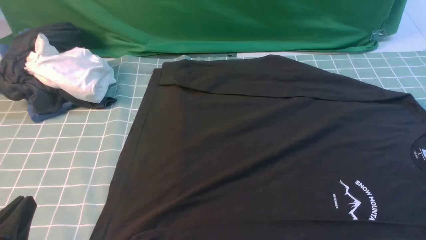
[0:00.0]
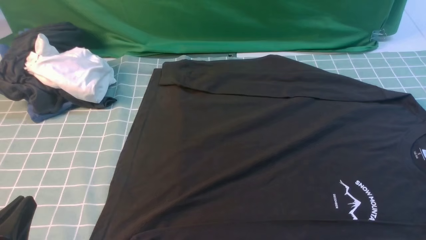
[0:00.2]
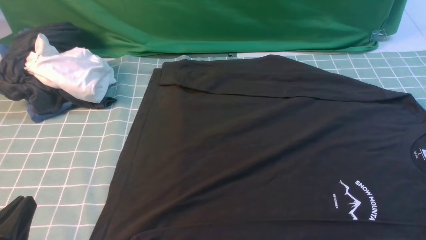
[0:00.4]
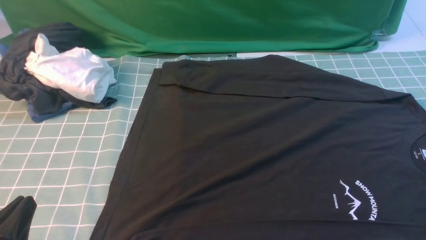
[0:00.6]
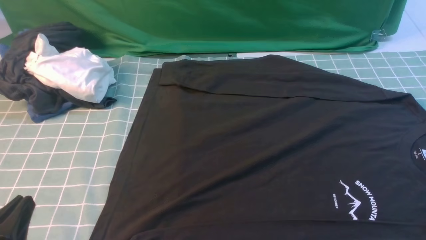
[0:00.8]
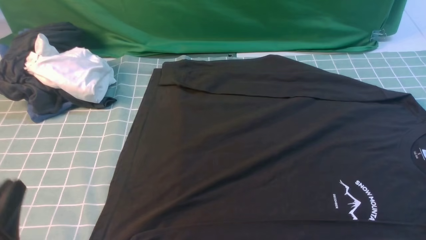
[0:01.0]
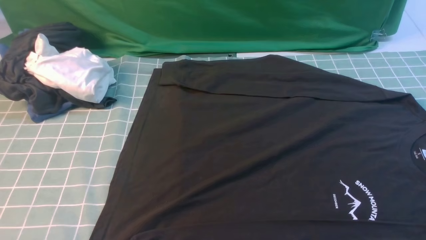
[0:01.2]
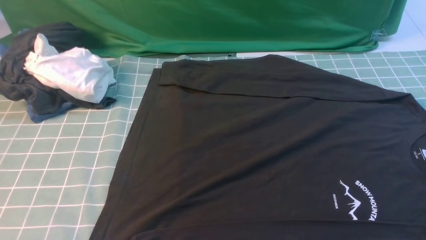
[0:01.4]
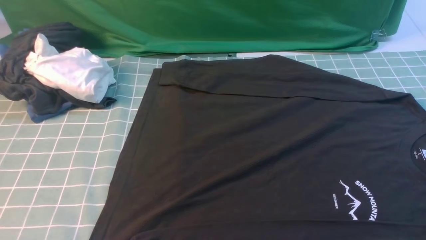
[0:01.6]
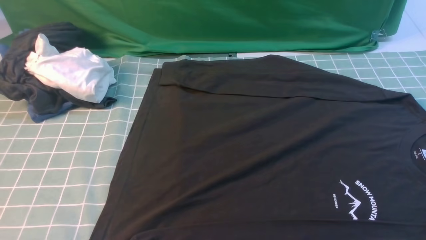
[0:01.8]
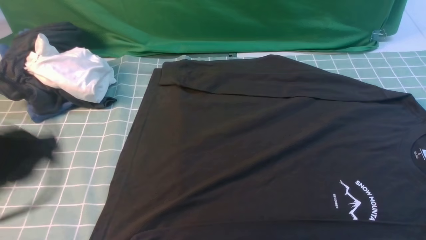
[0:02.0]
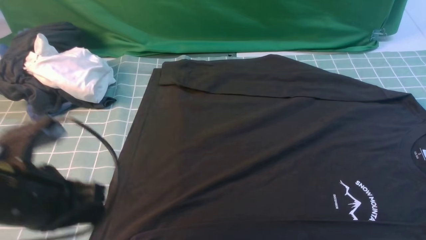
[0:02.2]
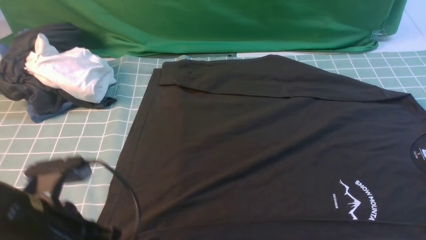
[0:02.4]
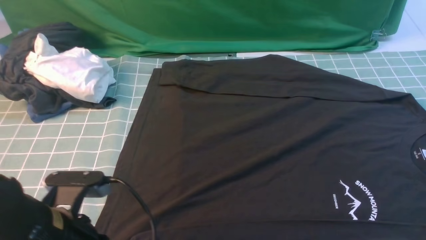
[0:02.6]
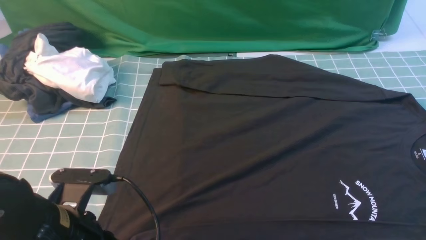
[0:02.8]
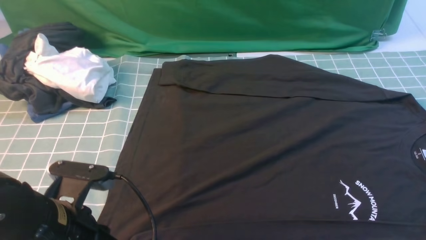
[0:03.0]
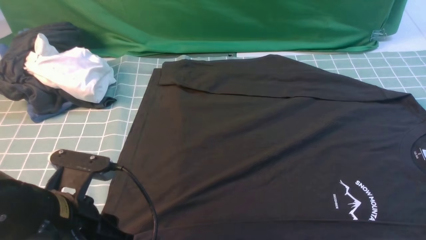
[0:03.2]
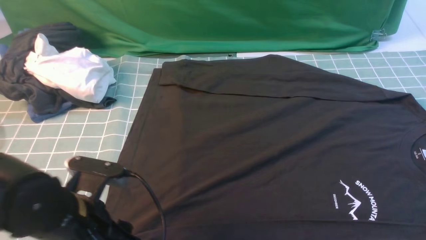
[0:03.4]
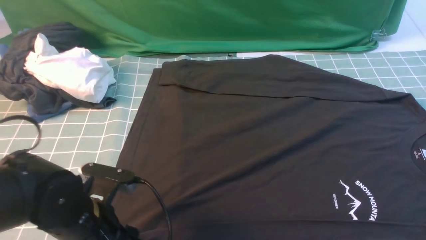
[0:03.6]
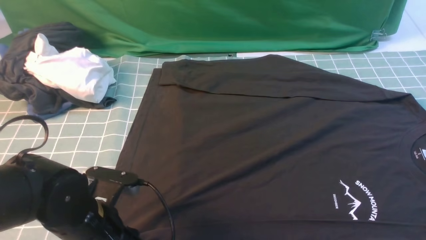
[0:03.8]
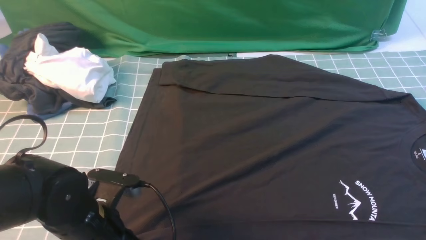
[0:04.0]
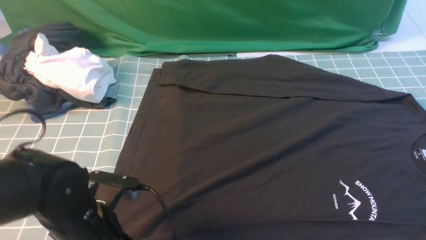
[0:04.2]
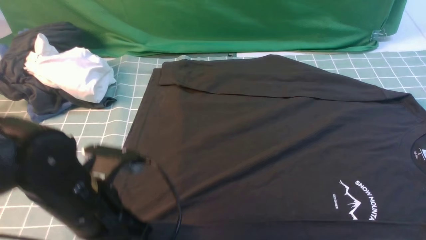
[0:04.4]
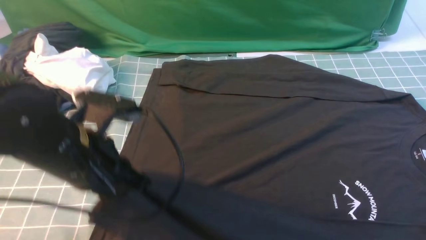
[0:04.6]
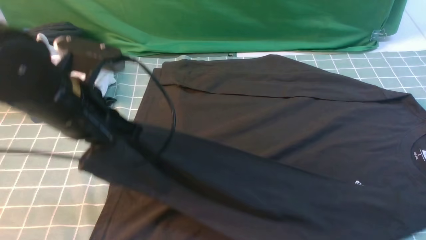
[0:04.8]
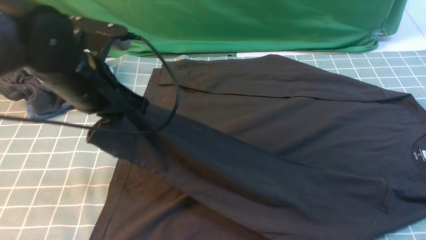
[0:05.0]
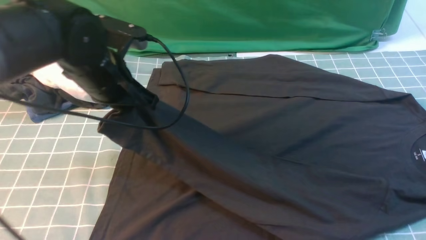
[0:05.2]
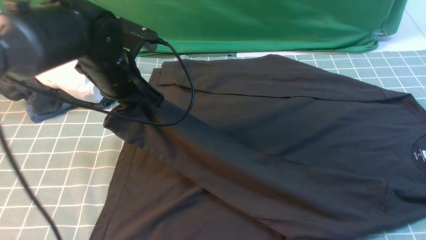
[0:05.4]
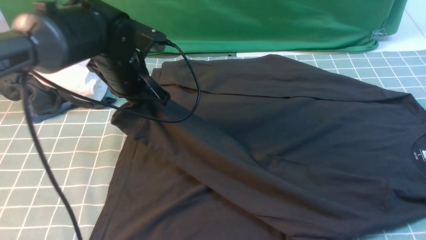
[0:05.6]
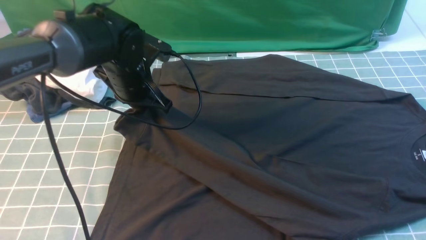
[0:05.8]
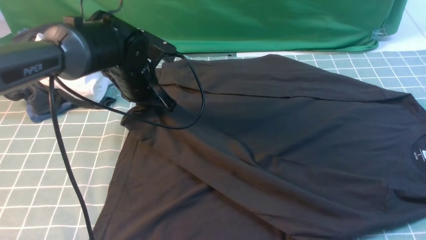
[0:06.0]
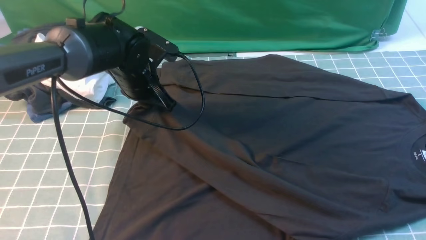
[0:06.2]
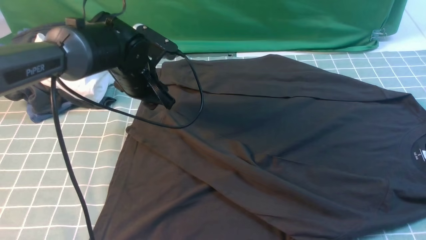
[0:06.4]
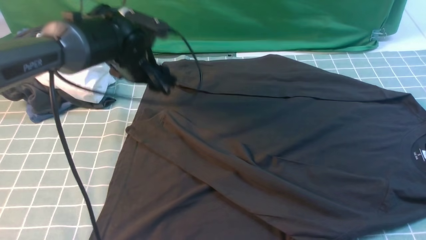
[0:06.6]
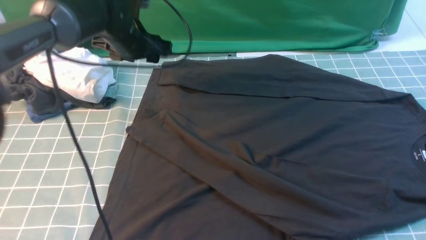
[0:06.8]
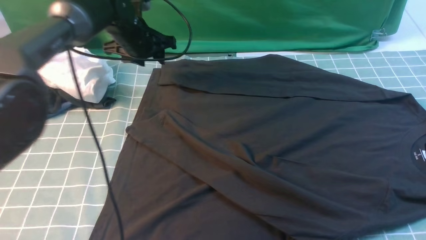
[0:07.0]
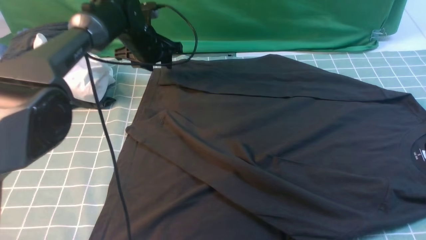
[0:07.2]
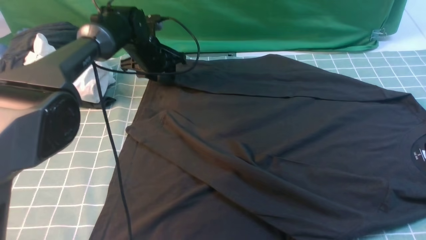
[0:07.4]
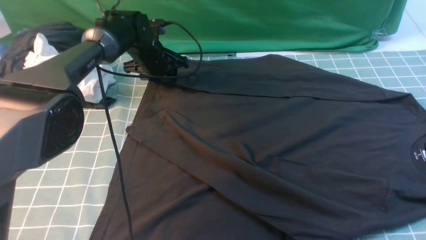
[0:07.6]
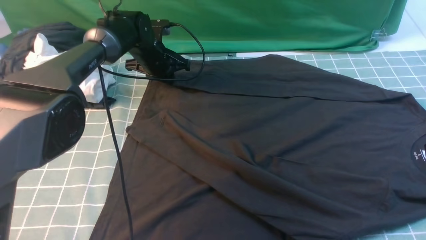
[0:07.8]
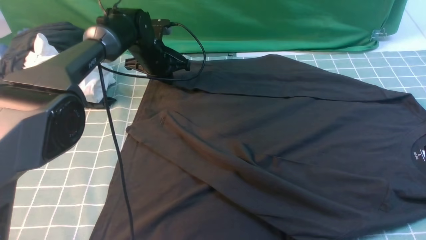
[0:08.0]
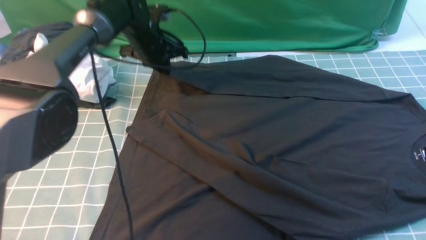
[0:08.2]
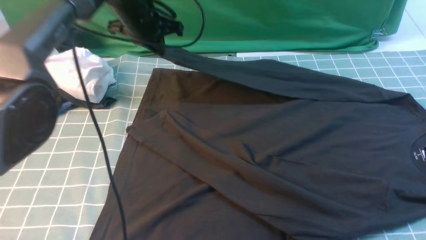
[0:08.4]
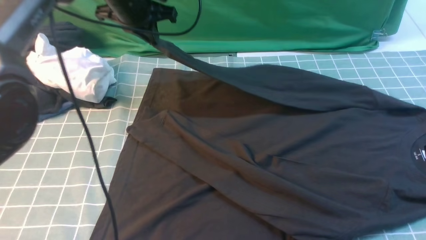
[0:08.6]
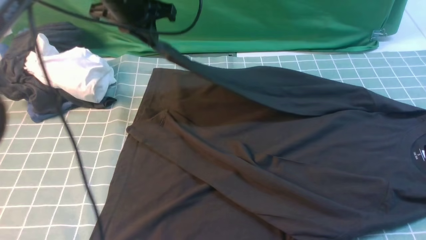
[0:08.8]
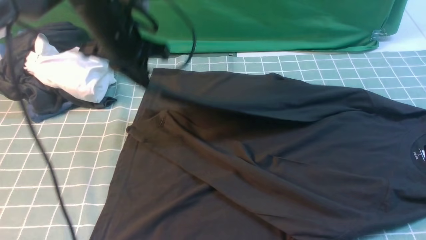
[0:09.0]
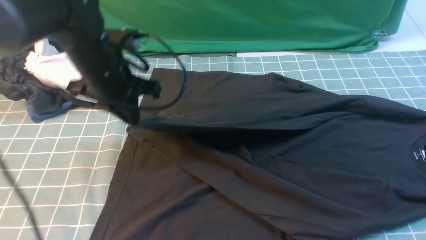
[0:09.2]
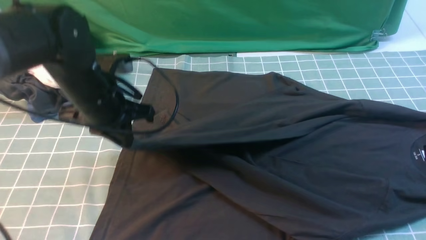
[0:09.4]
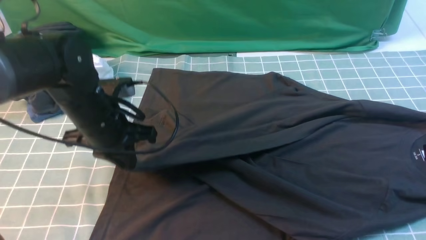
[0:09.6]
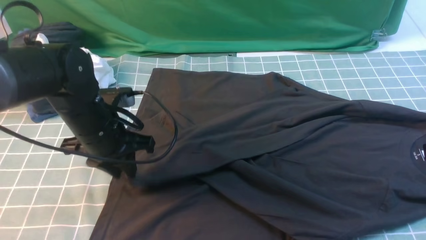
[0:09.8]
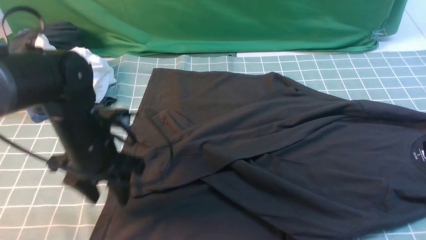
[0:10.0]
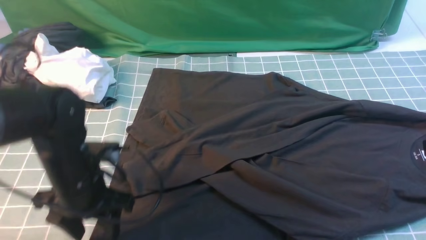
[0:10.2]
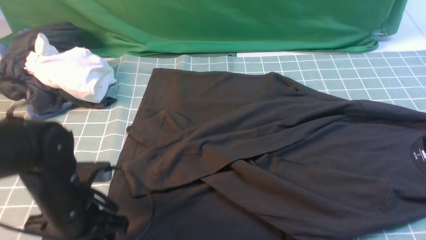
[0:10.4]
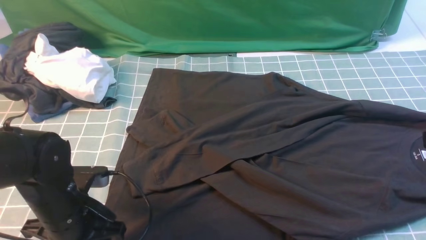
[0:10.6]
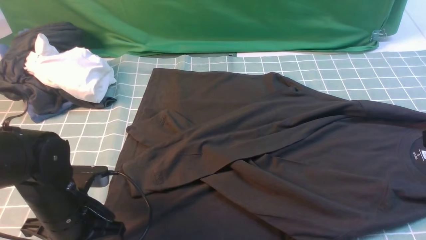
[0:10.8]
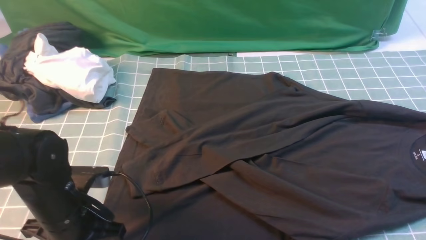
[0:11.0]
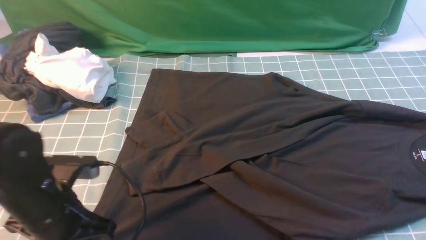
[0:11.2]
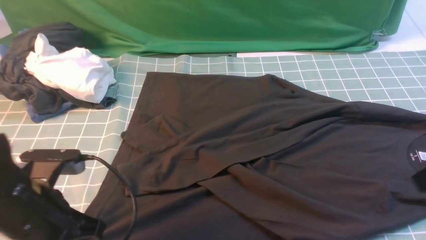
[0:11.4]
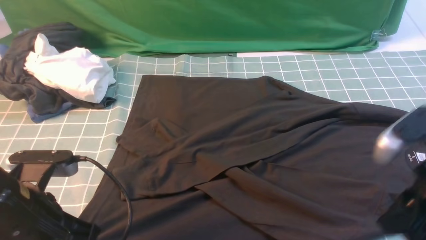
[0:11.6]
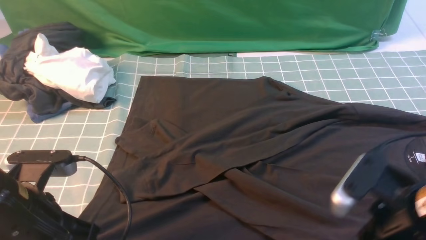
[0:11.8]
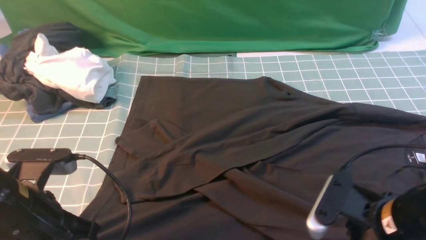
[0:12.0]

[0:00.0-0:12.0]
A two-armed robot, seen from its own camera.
Step, 0.0 to 4.4 s: use the left arm to clamp the cuff closest to it.
Step, 4.6 to 6.4 s: use the left arm to drag and place the cuff at the centered position on the left edge of the fabric.
Step, 6.6 to 8.2 s: use the left arm to clamp the cuff farthest from it.
Step, 8.4 to 9.8 s: use the left arm to drag and drop the cuff onto the cuff closest to the left arm.
0.0 to 1.6 s: The left gripper is displaced upward by about 15 cm.
1.6 to 3.0 s: The left gripper shifts some 15 cm downward, forward and to the right.
3.0 to 4.4 s: The left gripper shifts by approximately 5 cm, and opens, then closes again.
4.4 to 6.0 s: The left gripper travels forward by roughly 20 cm.
6.0 to 7.6 s: The left gripper travels forward and downward by roughly 15 cm, and opens.
7.6 to 9.0 s: The left gripper moves backward and upward, roughly 20 cm, and closes up.
9.0 to 10.4 s: The left gripper goes roughly 20 cm backward and downward, and opens its fingers.
10.4 to 12.0 s: The right gripper shifts approximately 15 cm downward and to the left, and opens. Meanwhile the left gripper moves upward and backward, approximately 10 cm, and closes up.

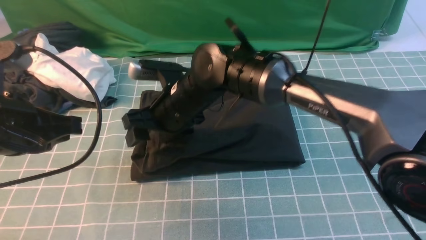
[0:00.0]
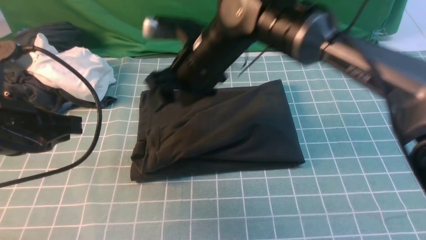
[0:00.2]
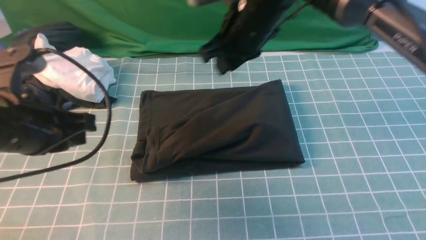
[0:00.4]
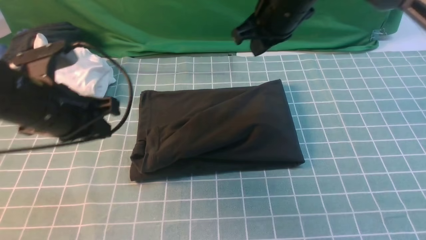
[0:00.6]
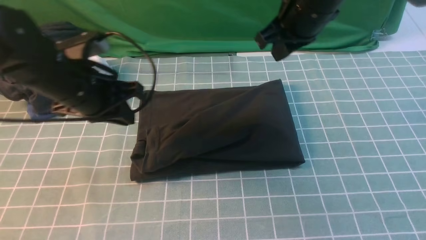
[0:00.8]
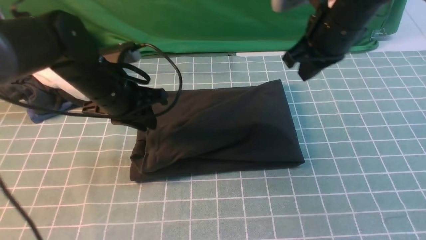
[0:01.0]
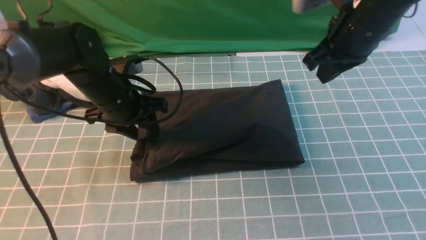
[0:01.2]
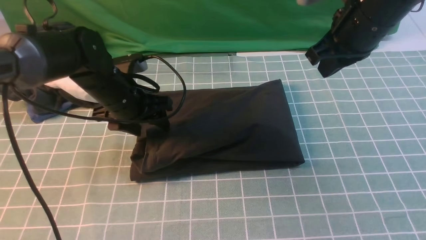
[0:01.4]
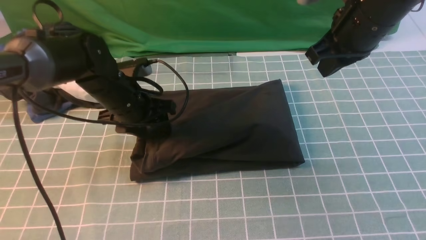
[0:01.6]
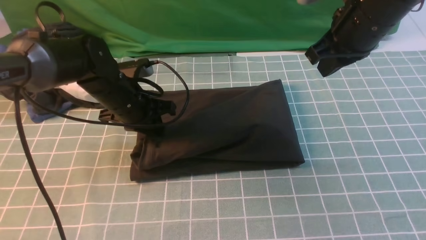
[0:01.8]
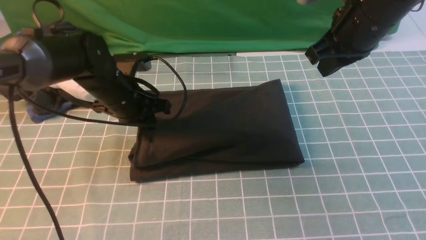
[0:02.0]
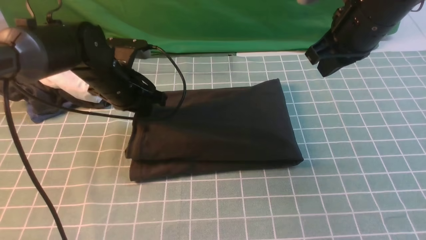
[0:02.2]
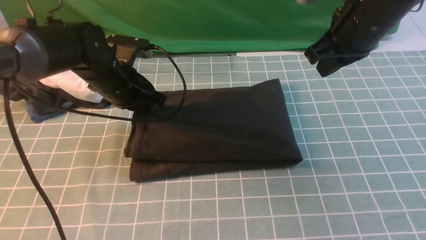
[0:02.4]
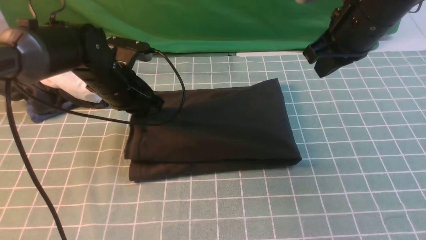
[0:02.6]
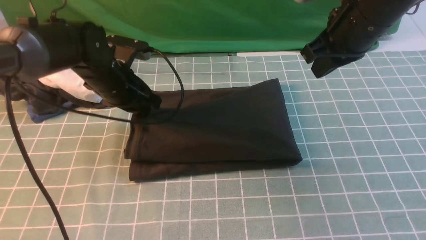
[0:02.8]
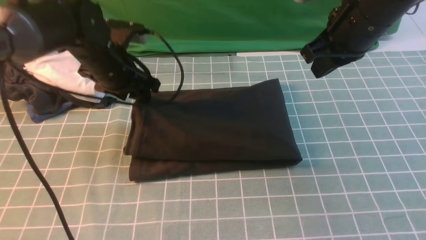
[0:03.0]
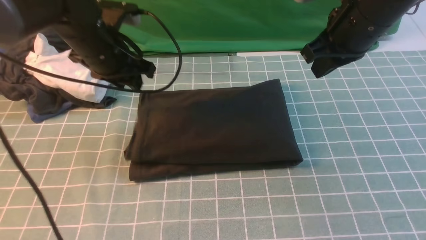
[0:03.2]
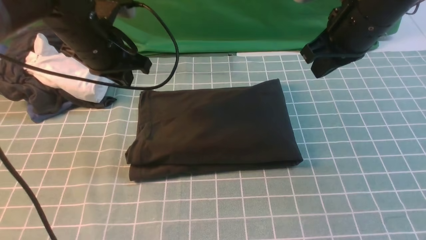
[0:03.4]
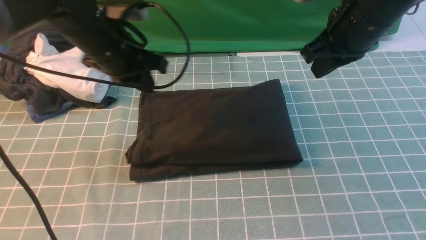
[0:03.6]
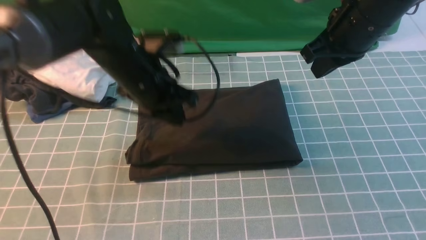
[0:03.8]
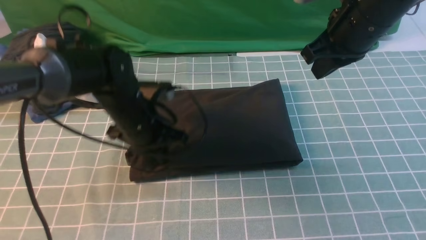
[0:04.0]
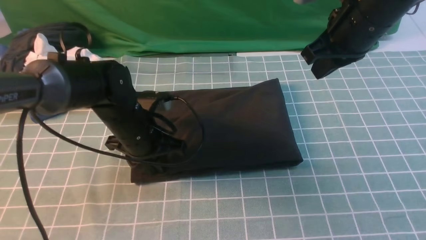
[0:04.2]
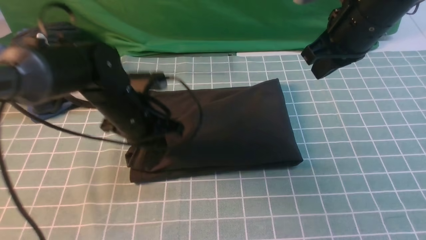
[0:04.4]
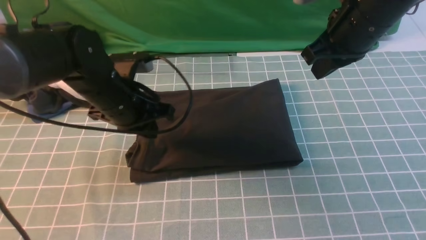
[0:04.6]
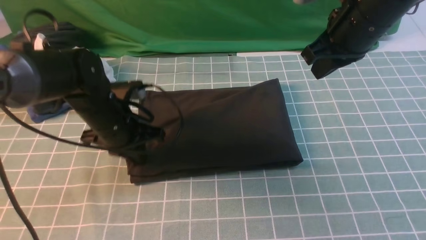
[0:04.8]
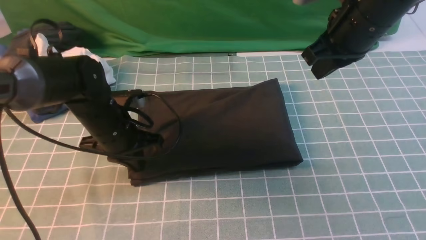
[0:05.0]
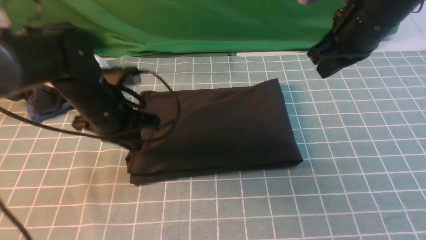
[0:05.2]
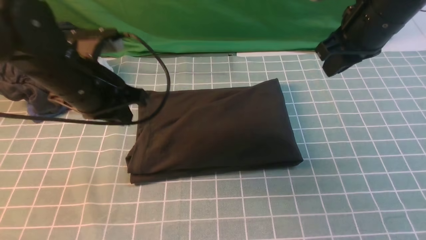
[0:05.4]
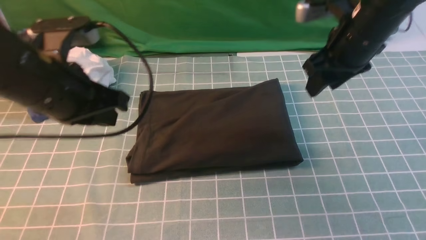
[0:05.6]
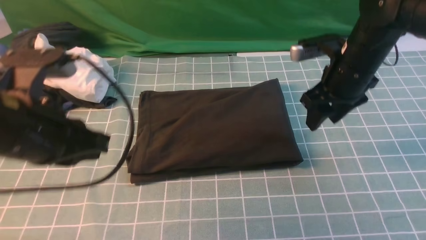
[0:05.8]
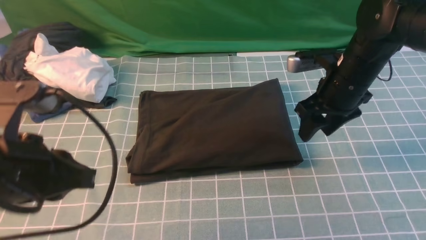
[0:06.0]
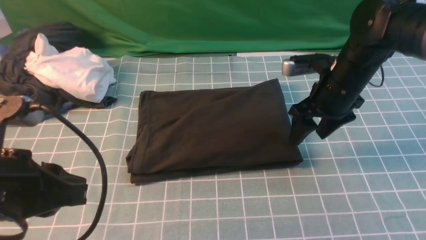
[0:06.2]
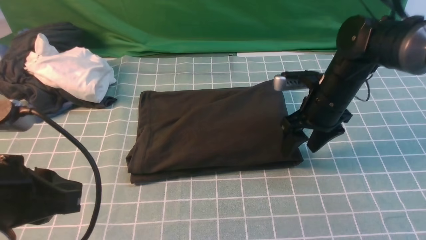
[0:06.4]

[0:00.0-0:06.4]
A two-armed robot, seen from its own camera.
0.0 to 1.6 s: The left gripper goes approximately 20 cm forward and downward, and opens; the right gripper moves to the right and upward, about 25 cm, and closes its fingers.
1.6 to 3.2 s: The left gripper travels upward by about 10 cm, and closes and opens again.
3.2 to 4.8 s: The left gripper moves downward and backward, some 10 cm, and closes.
4.8 to 6.4 s: The right gripper heads downward, covering approximately 15 cm, and opens up; the left gripper is displaced backward and upward by roughly 25 cm.
